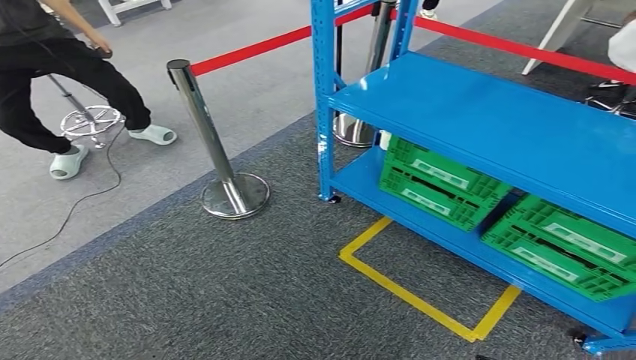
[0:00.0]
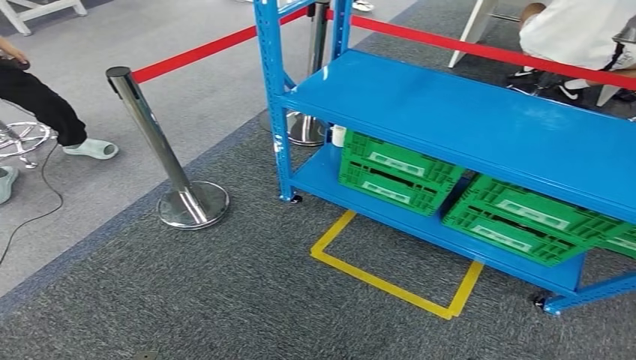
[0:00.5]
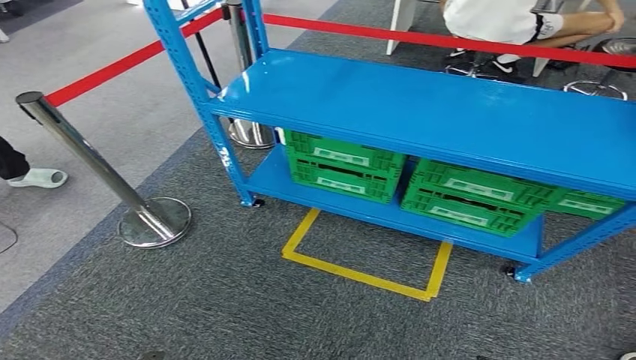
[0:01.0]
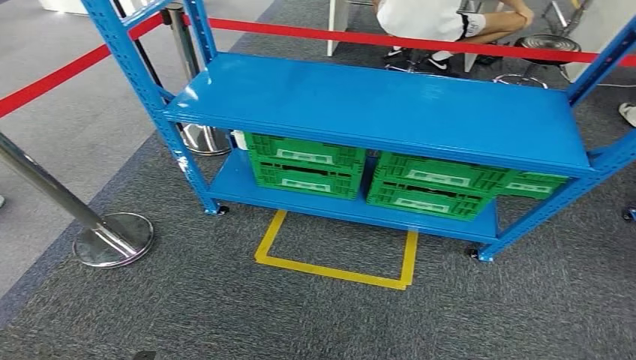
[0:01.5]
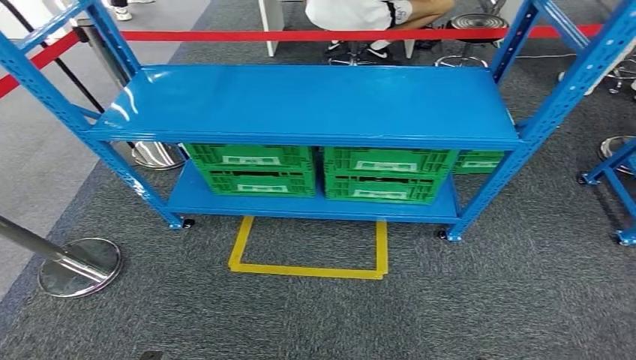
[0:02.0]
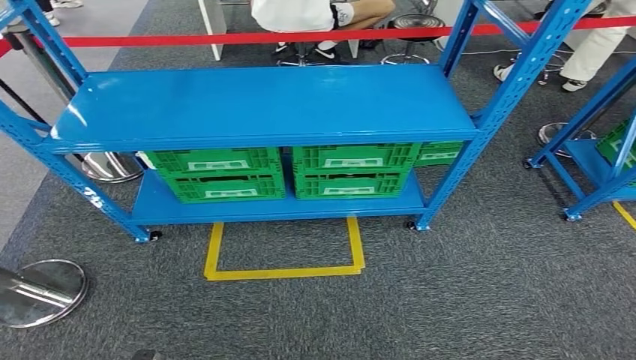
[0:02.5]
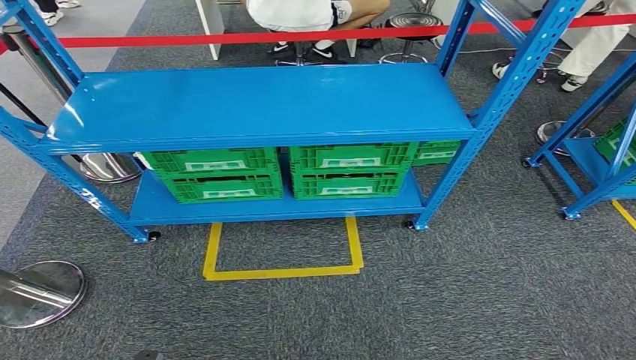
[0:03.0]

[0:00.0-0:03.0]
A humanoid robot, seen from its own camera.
Step, 0:00.0 to 0:03.0: Return to the initial position at the workbench.
